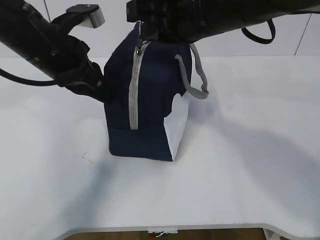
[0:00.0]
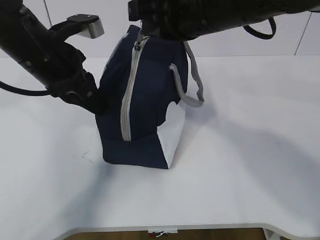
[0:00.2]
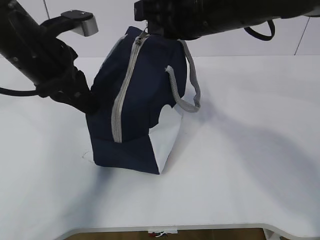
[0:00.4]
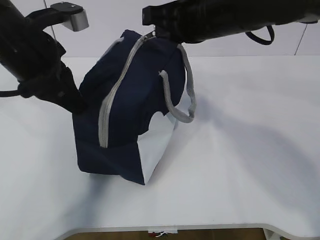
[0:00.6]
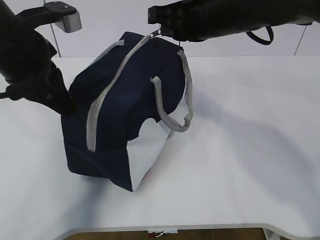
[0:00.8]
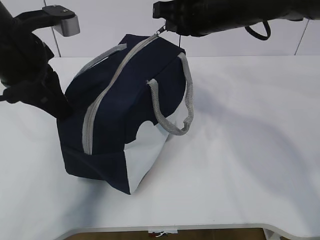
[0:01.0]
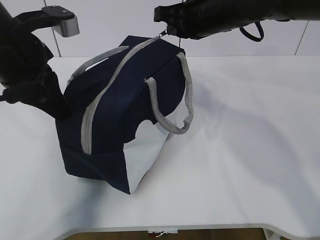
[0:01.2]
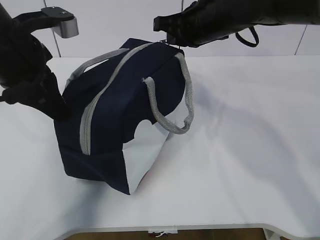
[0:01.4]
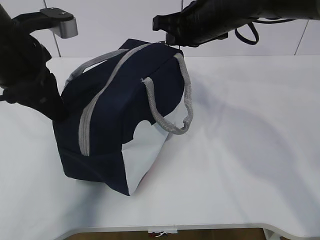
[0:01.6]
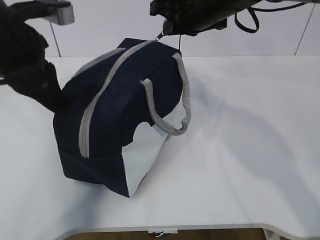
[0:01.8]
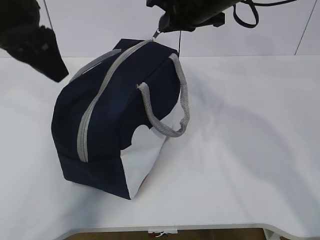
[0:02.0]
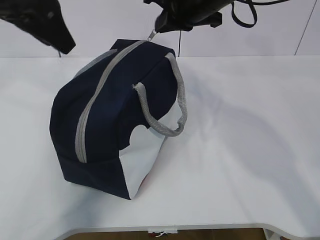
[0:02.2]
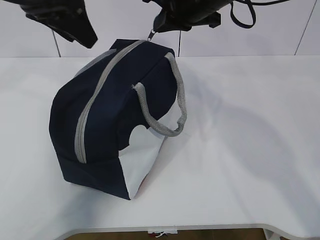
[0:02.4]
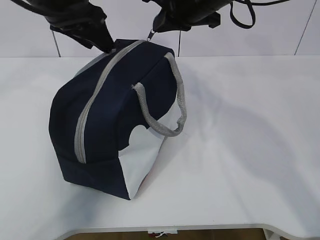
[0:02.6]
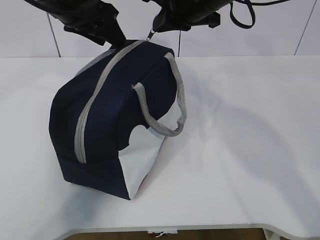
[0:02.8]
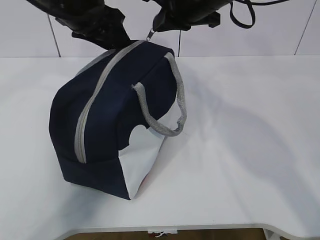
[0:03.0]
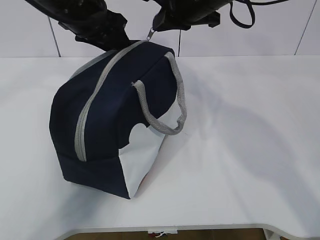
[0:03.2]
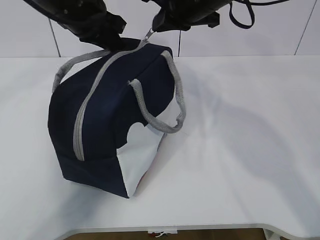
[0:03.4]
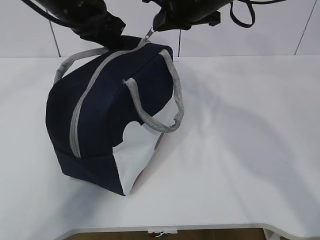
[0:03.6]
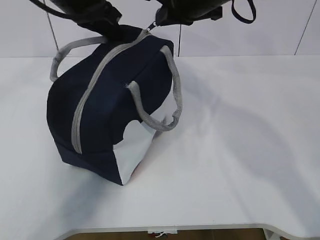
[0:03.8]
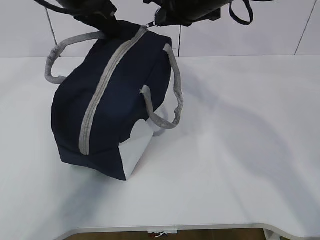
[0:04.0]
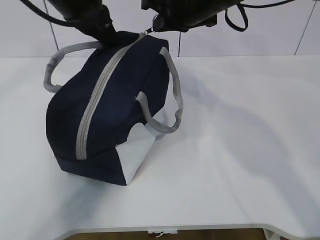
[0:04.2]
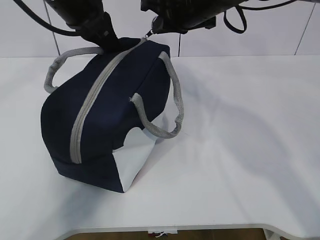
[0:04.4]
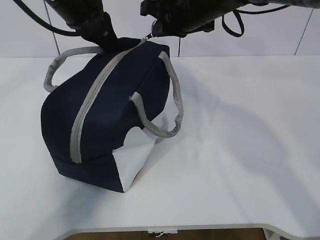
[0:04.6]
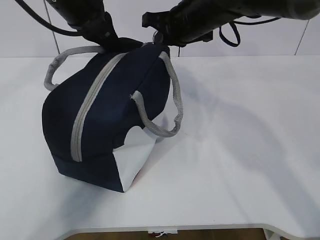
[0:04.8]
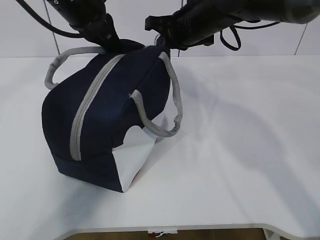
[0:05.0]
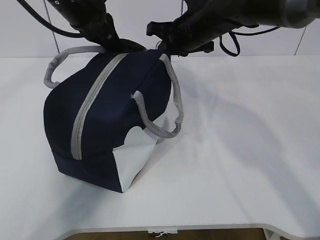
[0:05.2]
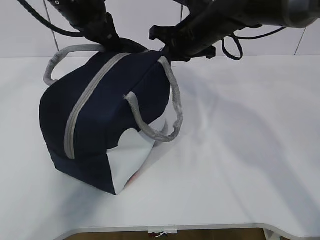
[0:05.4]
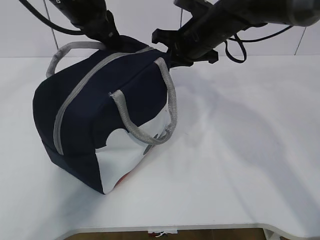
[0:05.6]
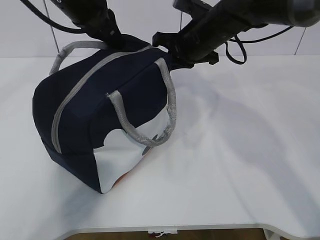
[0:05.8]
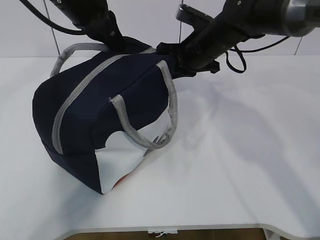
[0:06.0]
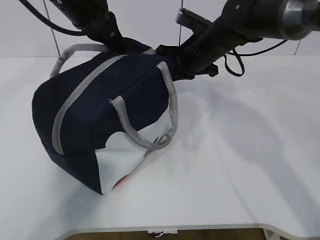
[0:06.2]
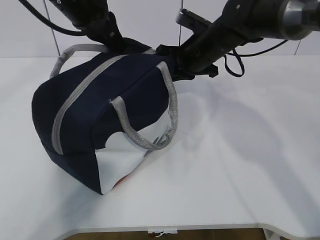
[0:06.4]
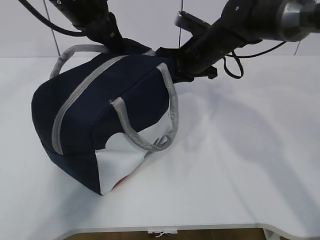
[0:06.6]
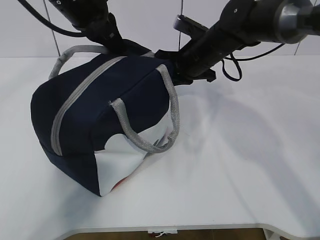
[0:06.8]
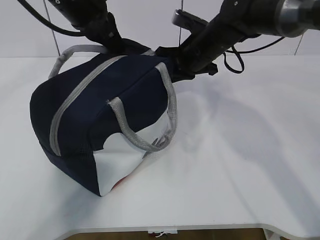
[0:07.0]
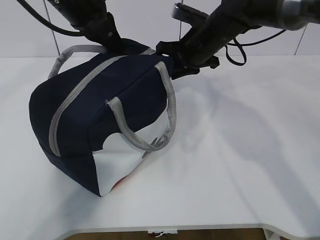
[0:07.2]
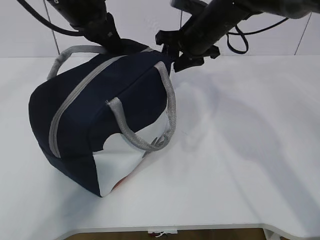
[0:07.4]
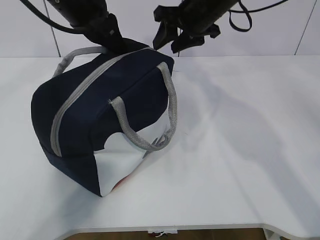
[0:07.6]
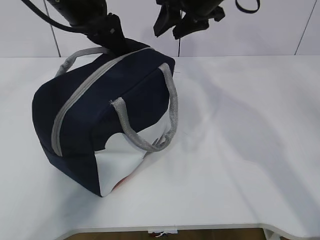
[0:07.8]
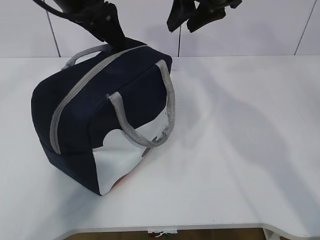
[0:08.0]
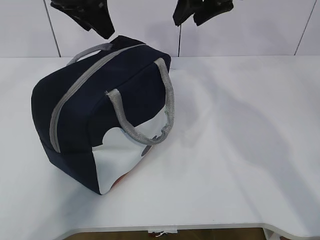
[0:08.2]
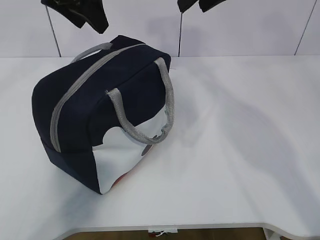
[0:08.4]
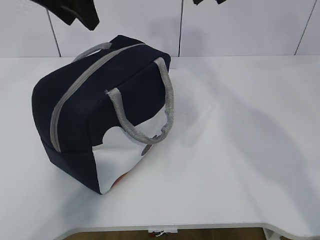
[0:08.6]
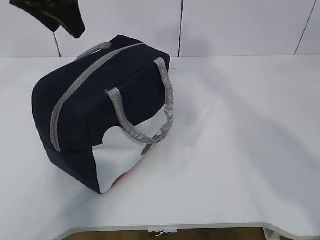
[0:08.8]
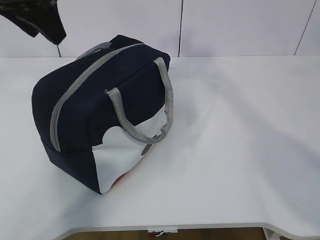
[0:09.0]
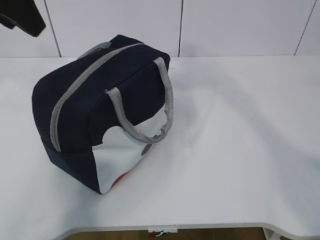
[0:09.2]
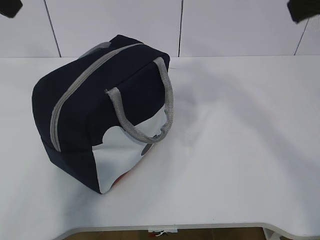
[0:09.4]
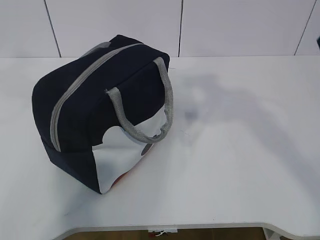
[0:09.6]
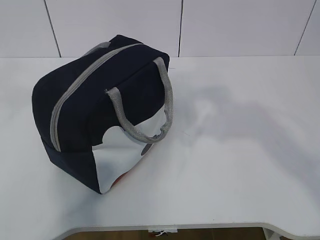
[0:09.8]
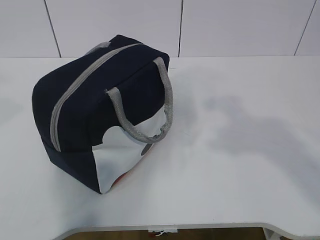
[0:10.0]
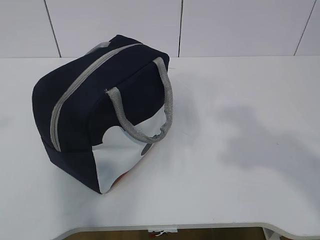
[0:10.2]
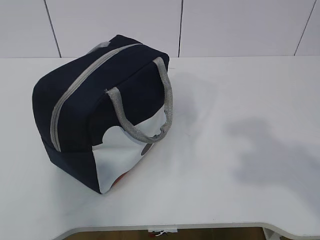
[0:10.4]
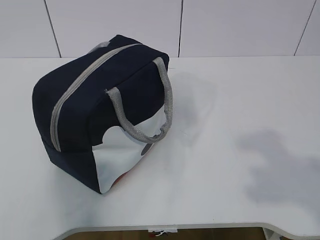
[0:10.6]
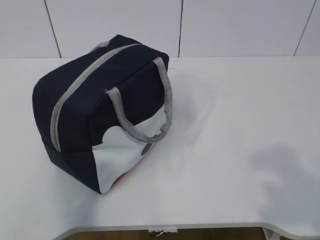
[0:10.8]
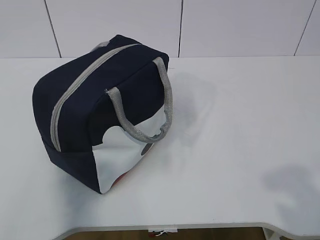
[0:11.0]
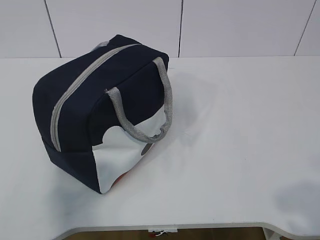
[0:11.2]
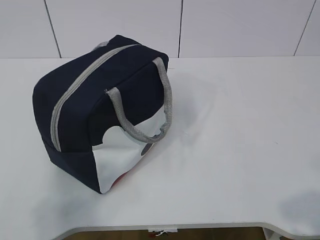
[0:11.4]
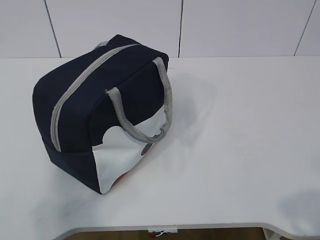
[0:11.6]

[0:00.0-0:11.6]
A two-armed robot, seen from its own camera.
0.0 to 1.4 s: The right gripper is displaced forward and downward by roughly 10 cm. Meanwhile the left gripper shifts by roughly 5 cm.
1.4 to 2.8 s: The left gripper moves forward, approximately 10 cm, and opens up.
2.8 to 4.4 s: The left gripper closes up.
4.4 to 5.8 s: The right gripper is displaced downward by roughly 5 cm.
5.8 to 7.2 s: The grippers stay close to where they were, moving slightly.
7.2 to 8.8 s: The left gripper is displaced upward by about 5 cm, and opens up; the right gripper goes roughly 25 cm upward and backward, and opens up.
8.8 to 10.2 s: The left gripper shifts some 25 cm backward and to the left, while the right gripper is displaced backward by some 25 cm.
10.2 to 11.6 s: The two grippers go some 20 cm downward and backward.

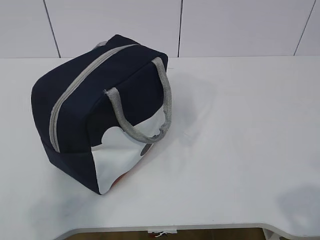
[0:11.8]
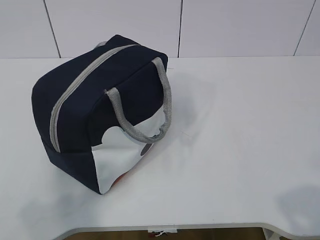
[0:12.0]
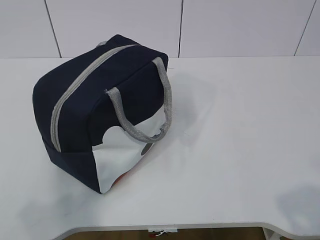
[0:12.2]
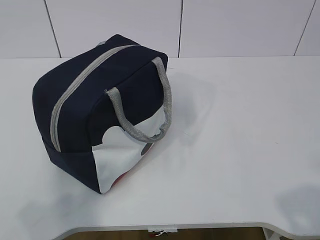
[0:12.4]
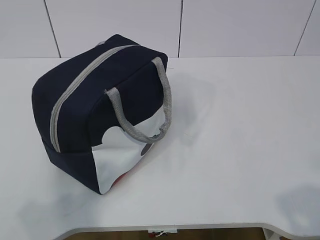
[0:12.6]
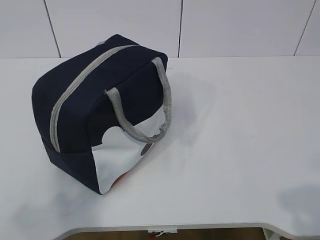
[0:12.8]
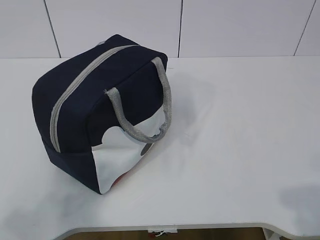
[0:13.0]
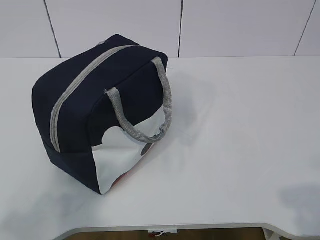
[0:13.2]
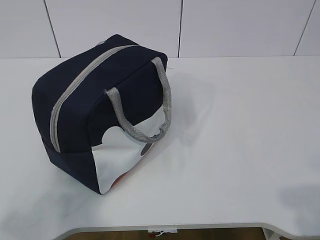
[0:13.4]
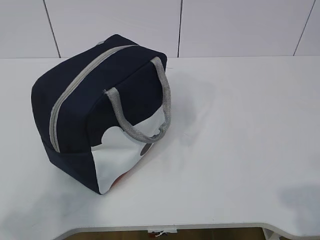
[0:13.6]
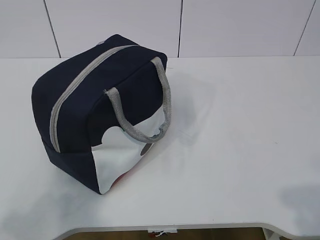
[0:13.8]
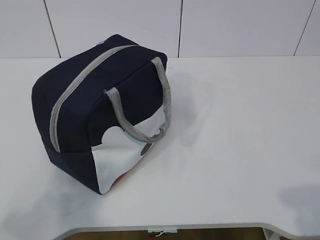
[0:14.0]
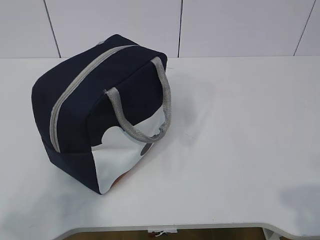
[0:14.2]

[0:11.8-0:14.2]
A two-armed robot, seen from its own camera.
13.0 to 14.2 s: The two grippers keep their place.

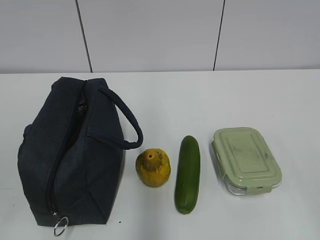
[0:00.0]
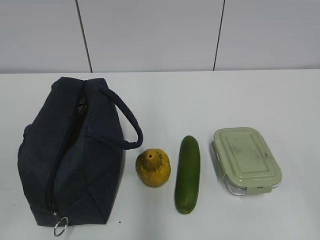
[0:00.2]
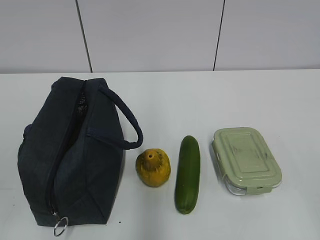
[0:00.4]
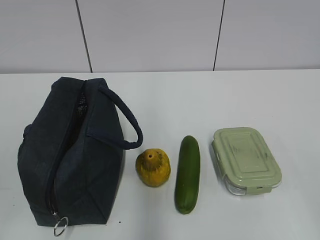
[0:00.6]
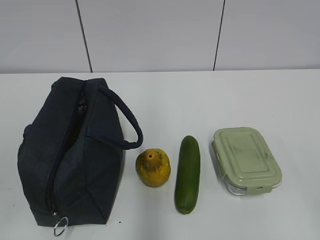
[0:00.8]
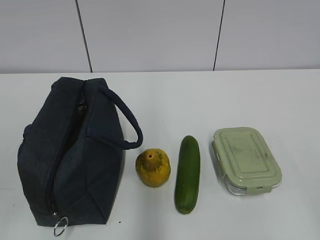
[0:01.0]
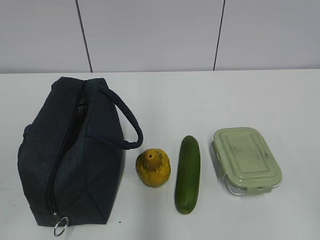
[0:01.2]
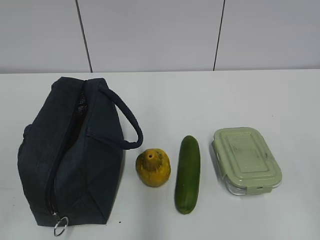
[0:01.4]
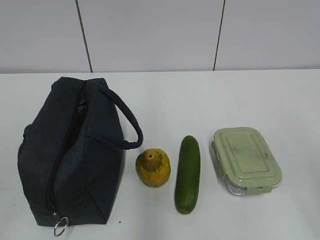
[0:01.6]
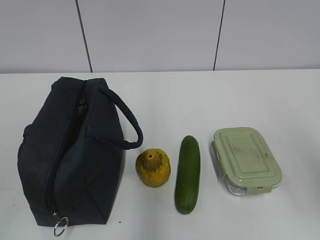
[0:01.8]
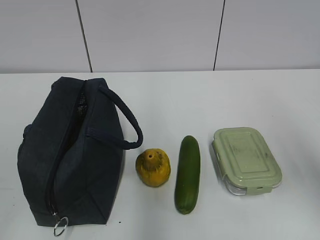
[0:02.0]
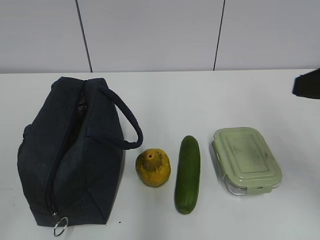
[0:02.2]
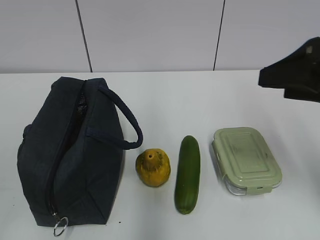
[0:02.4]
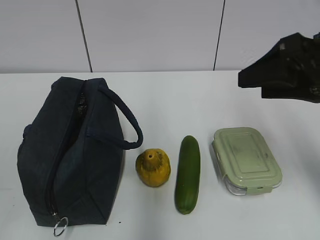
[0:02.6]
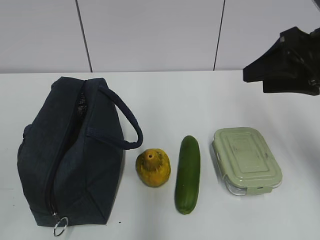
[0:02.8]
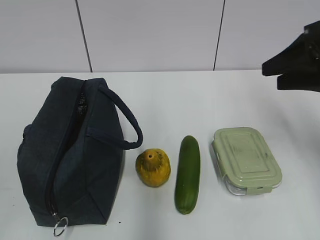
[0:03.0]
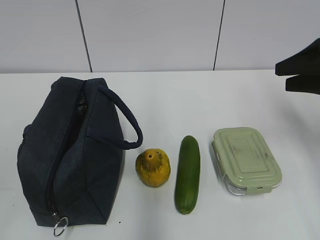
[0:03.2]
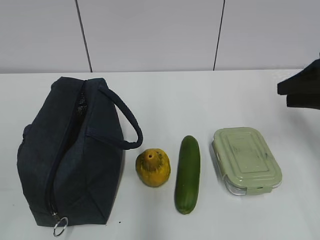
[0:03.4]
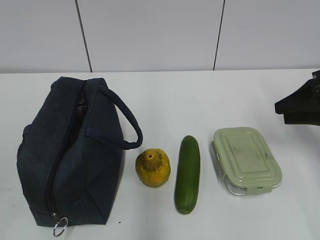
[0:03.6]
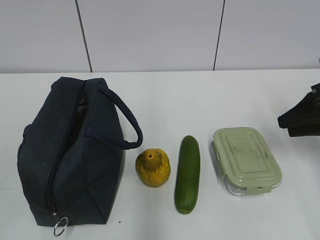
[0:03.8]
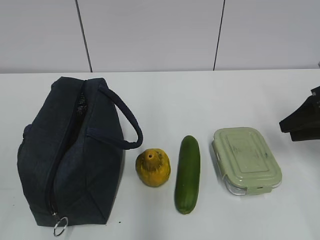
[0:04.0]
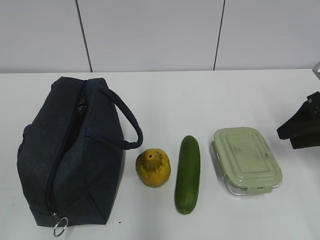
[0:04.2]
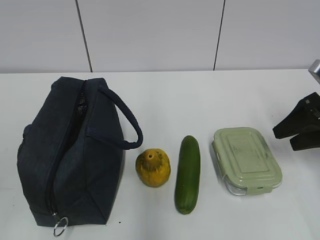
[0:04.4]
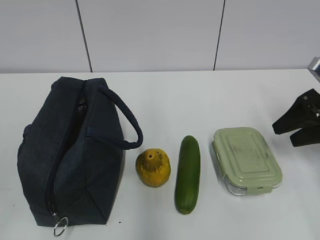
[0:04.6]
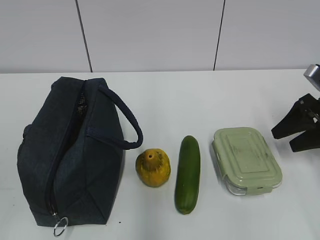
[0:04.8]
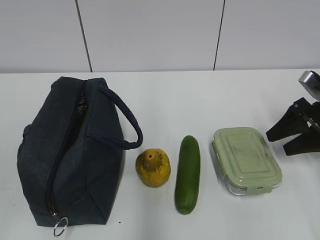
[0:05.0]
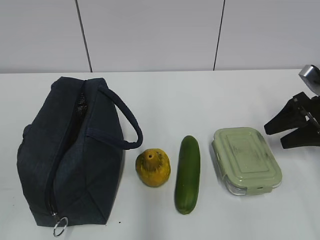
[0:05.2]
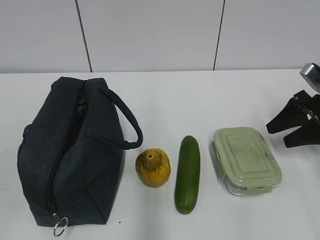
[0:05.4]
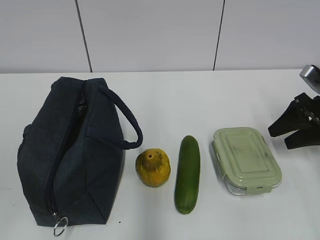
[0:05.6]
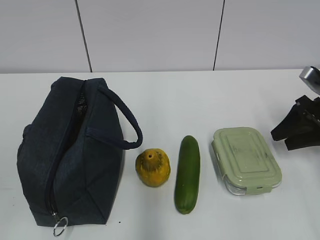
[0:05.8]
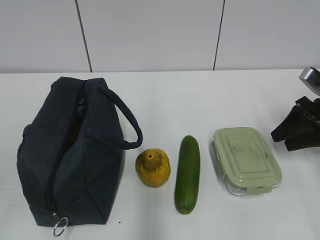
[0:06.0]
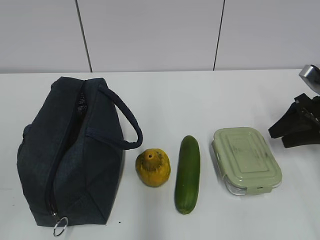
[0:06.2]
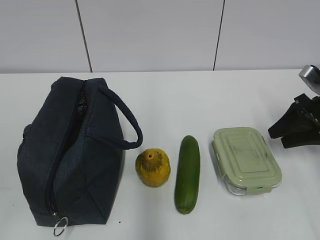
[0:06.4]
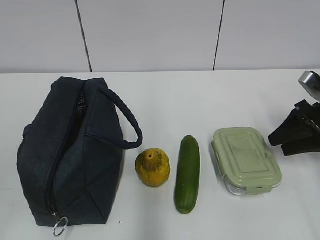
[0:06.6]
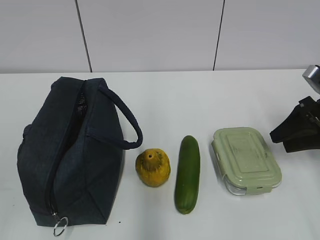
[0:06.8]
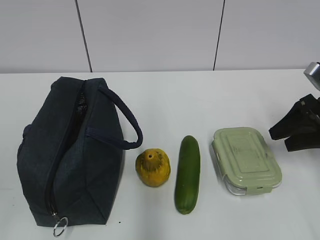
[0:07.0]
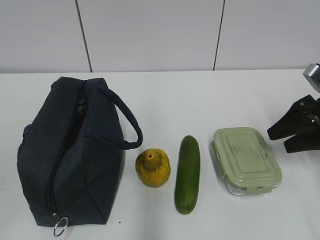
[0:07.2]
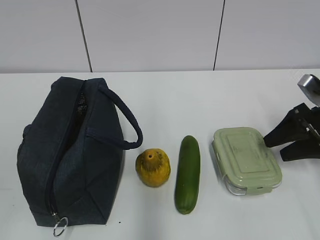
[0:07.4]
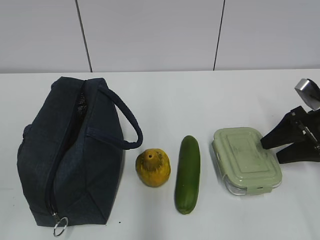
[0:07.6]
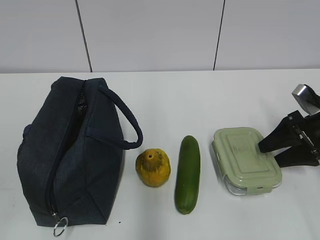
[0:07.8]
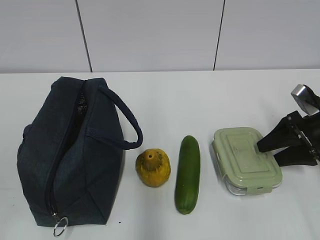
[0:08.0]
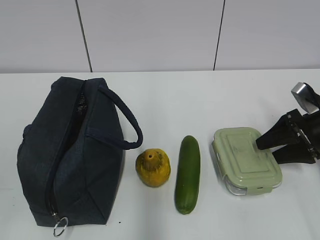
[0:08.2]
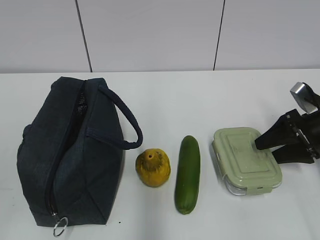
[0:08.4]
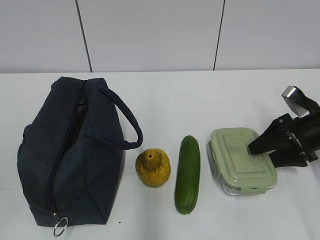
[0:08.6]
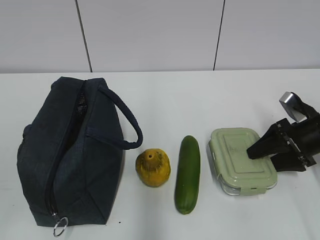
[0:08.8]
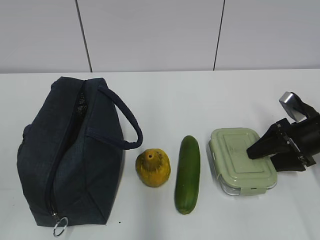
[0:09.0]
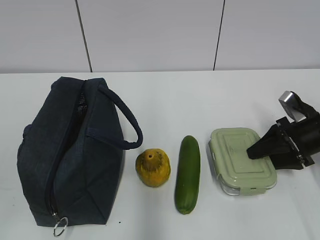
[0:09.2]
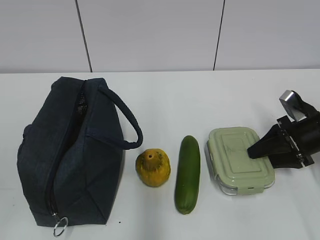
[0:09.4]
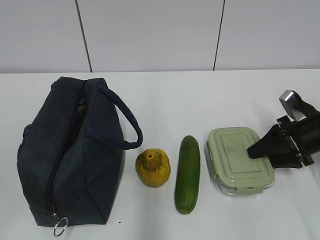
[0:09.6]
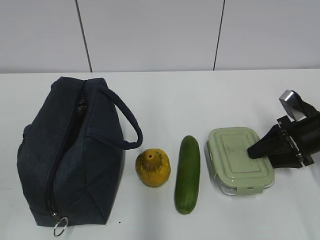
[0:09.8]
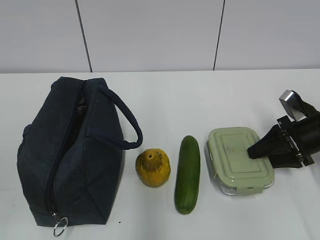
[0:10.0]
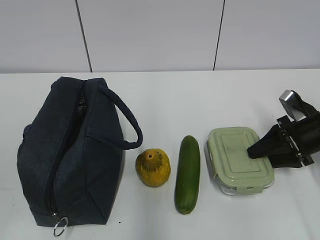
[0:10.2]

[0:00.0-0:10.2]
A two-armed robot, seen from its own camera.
1.4 to 3.0 s: The right gripper heads forward, covering roughly 30 cm.
3.0 to 4.4 s: The right gripper shifts about 10 cm downward and to the right.
4.4 to 7.2 s: There are only small adjustments of the grippers.
7.2 to 8.8 s: The right gripper travels downward by approximately 5 cm.
8.8 to 10.2 s: Both grippers stay about where they are.
